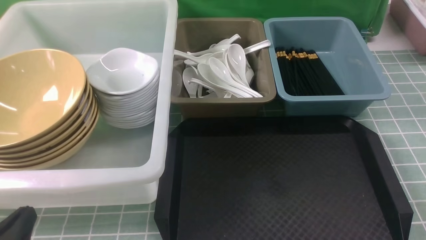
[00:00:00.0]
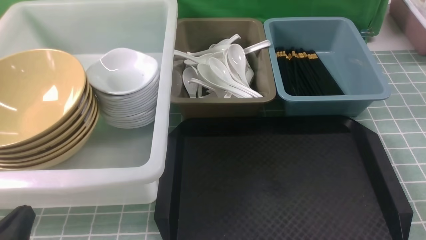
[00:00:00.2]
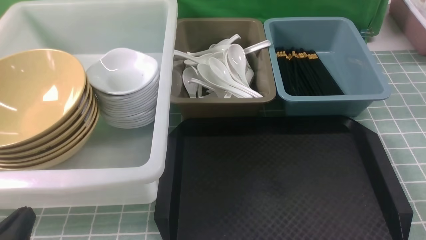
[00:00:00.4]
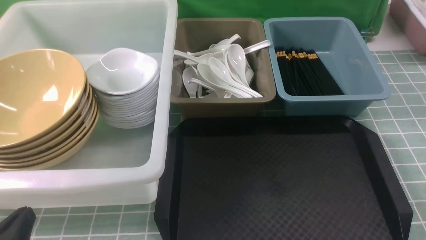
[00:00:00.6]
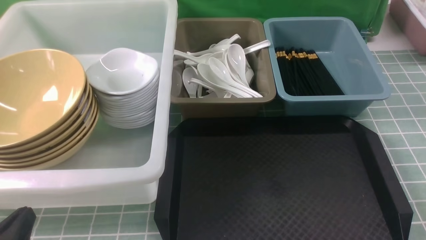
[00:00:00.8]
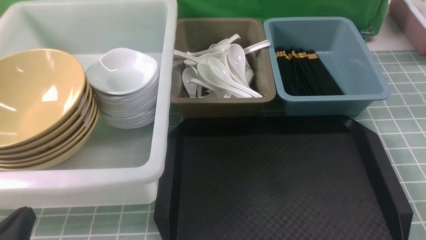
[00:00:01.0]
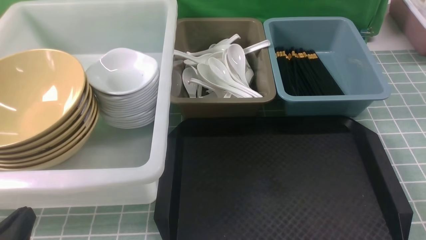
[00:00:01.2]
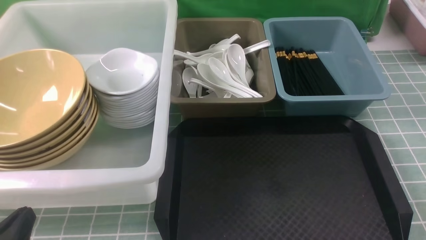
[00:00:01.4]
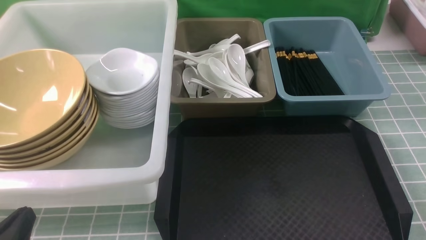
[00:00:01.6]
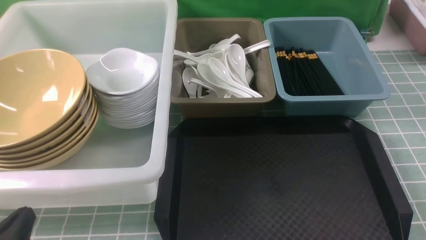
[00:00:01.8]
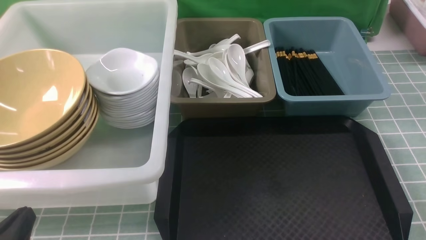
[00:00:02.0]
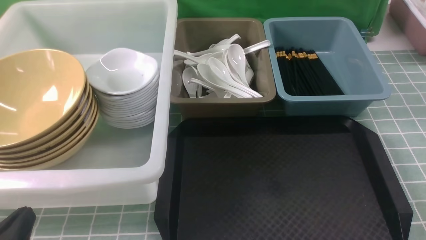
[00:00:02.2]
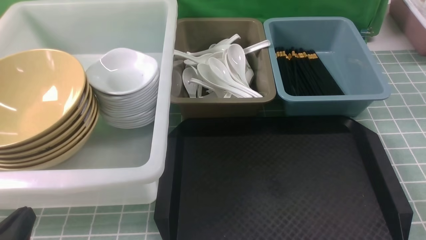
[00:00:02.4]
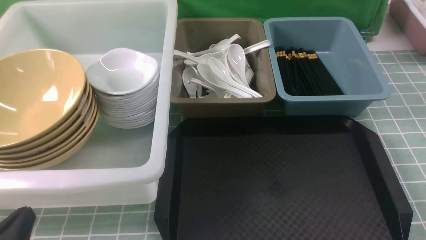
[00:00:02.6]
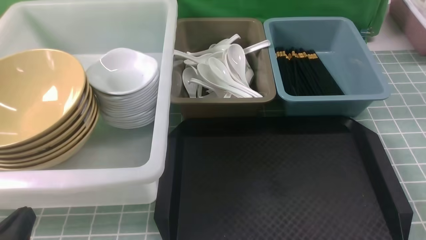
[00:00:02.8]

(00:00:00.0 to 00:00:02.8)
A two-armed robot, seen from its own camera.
Task of the whole recording: on blue table put chopsticks spoon bowls plates into blue grey white boxes.
00:00:00.0 - 00:00:02.8: The two grippers keep their place.
